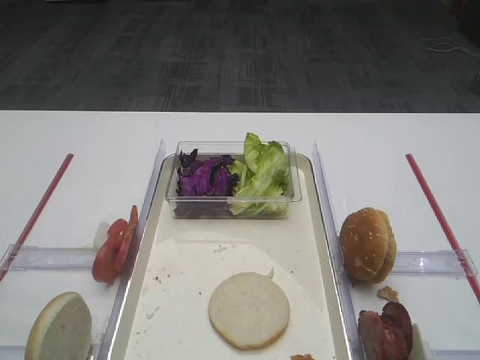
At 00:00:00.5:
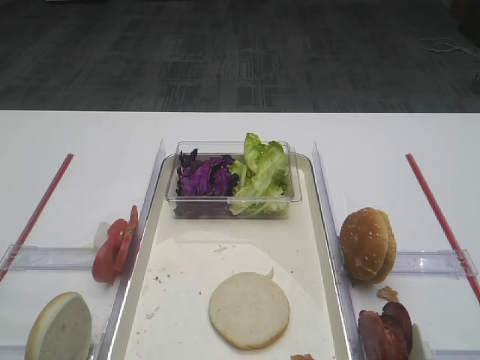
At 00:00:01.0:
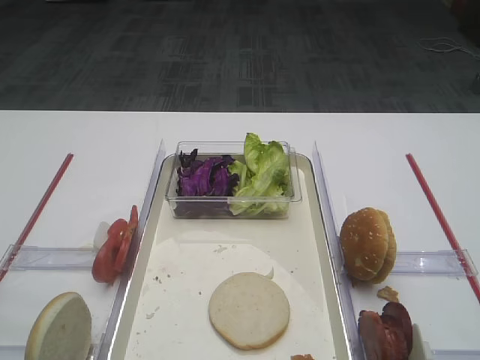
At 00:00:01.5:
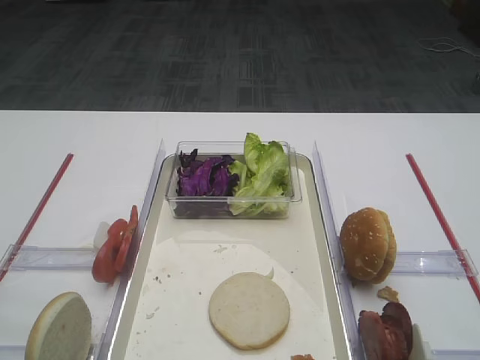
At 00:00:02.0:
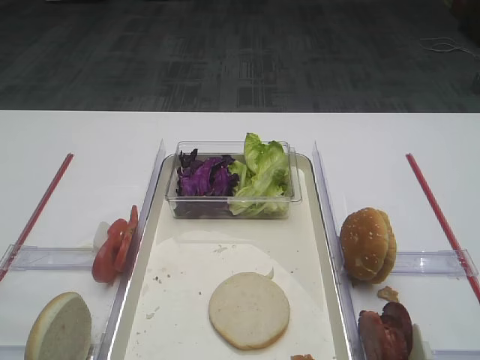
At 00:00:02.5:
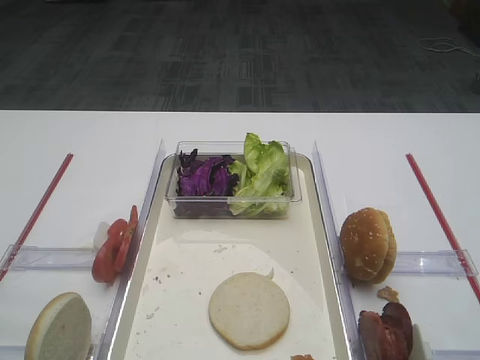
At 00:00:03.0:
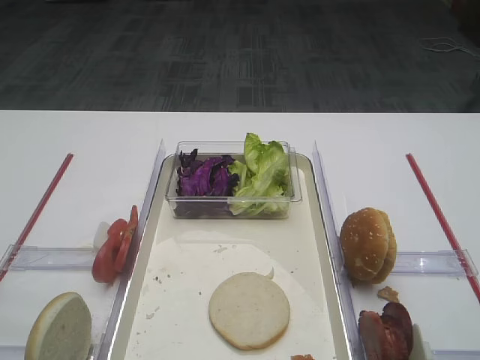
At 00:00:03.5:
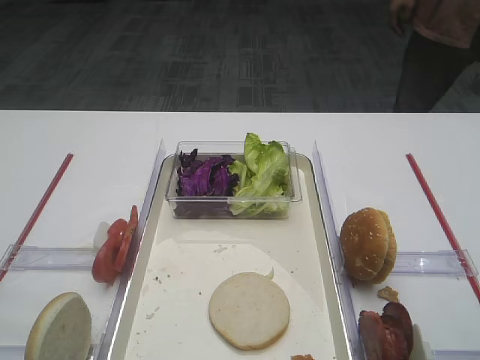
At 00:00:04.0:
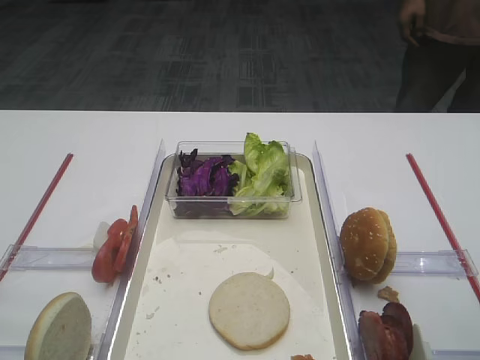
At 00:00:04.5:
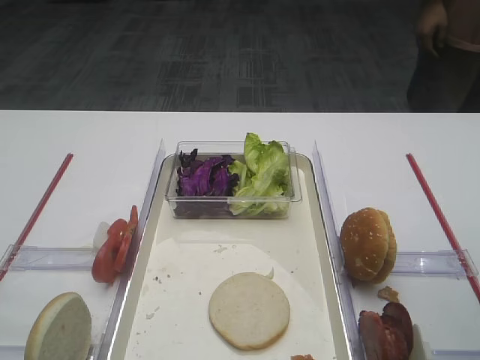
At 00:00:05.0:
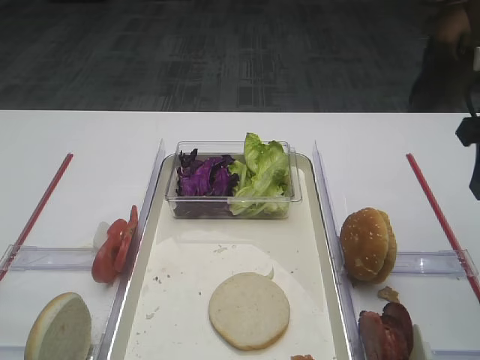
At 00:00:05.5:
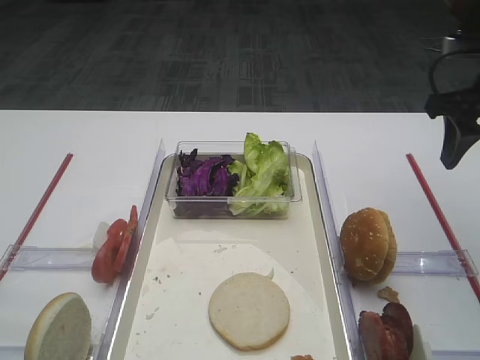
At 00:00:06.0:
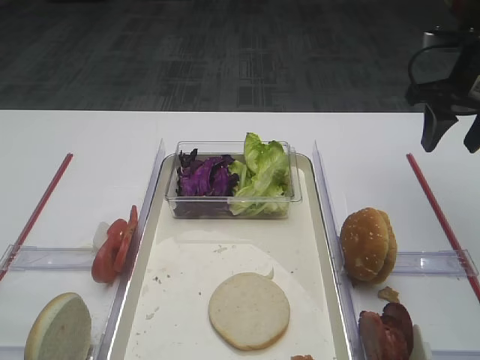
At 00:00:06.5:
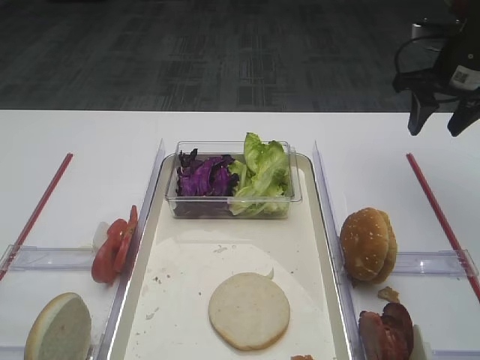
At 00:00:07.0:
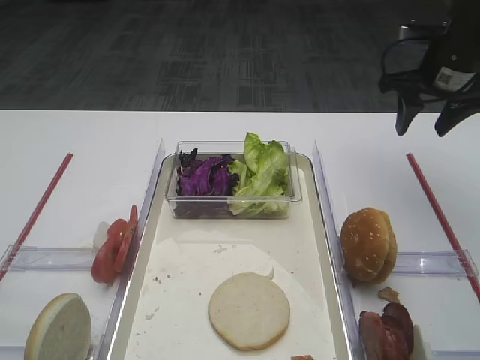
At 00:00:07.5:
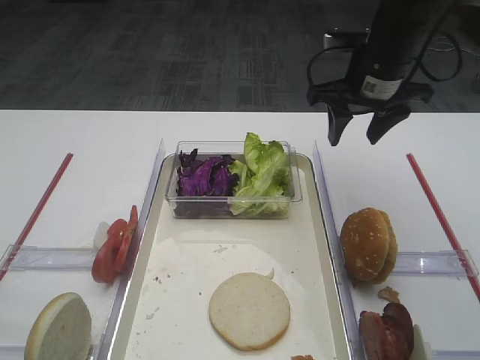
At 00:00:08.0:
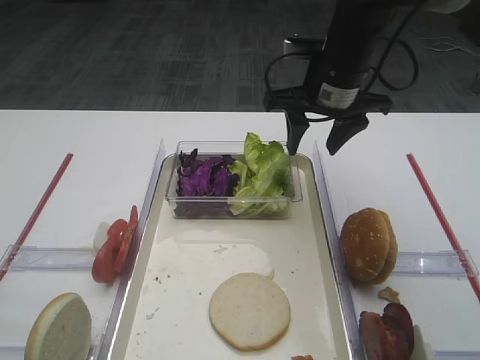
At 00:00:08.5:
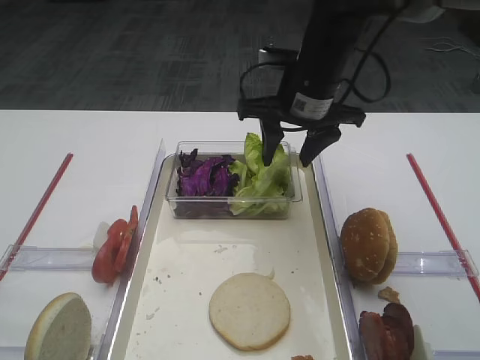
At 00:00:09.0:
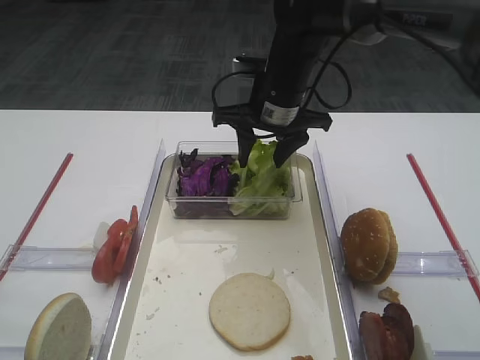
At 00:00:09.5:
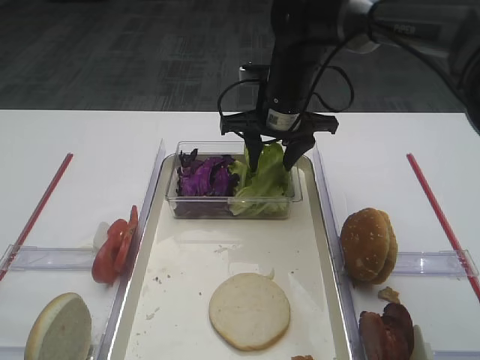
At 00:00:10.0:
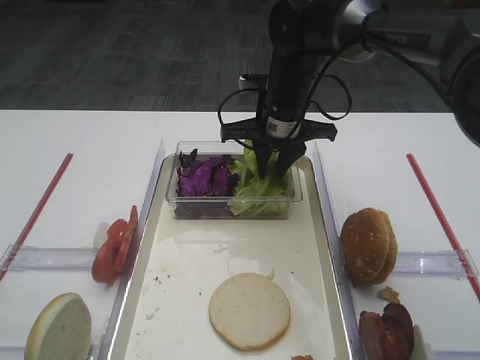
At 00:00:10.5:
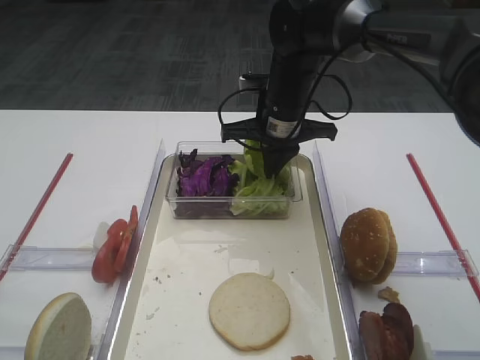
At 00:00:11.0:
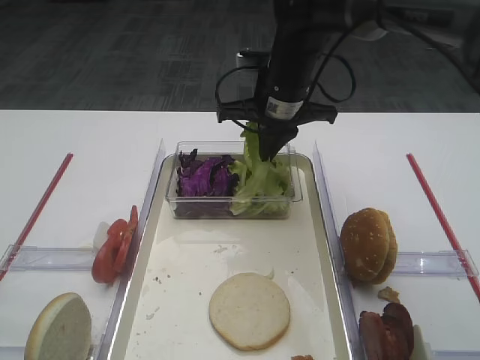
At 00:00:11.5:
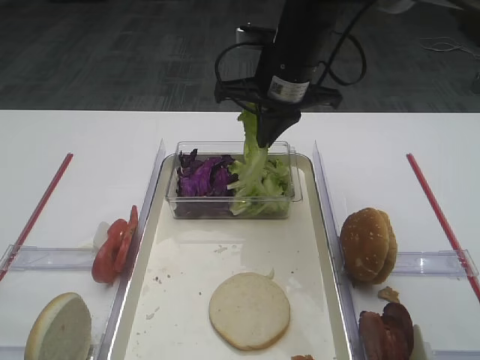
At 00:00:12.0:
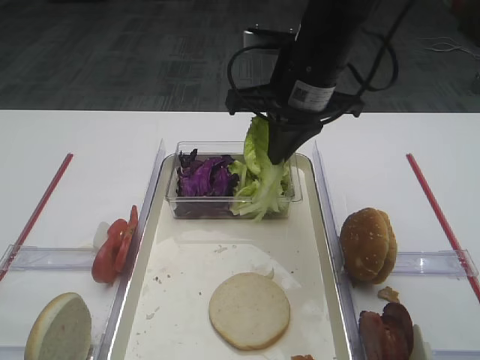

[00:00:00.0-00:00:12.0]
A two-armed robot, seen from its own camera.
Step, 00:00:00.0 to 00:00:11.0: Pick up the lettuce leaf with the right gripper.
00:00:02.0 to 00:00:04.0: The right gripper is displaced forward by roughly 10 cm.
00:00:04.0 to 00:00:06.0: The right gripper travels forward by about 25 cm.
00:00:06.0 to 00:00:08.0: The right gripper heads to the left, covering approximately 15 cm.
00:00:08.0 to 00:00:10.0: The right gripper is displaced to the left and downward by roughly 10 cm, and closes.
00:00:10.0 to 00:00:12.0: The right gripper goes roughly 10 cm upward and backward, and closes.

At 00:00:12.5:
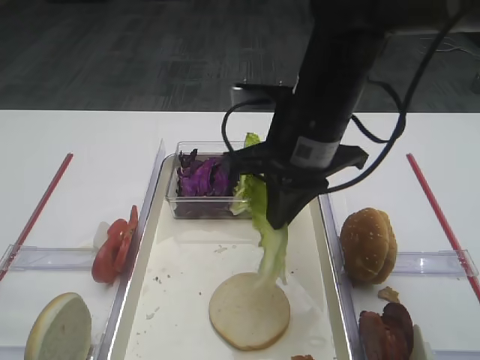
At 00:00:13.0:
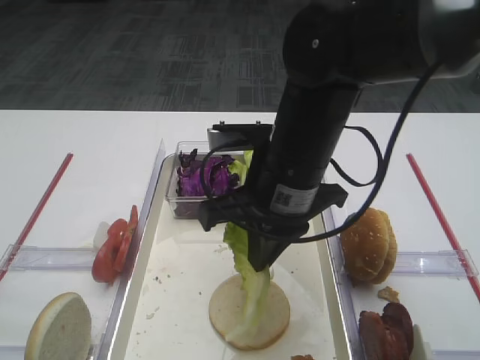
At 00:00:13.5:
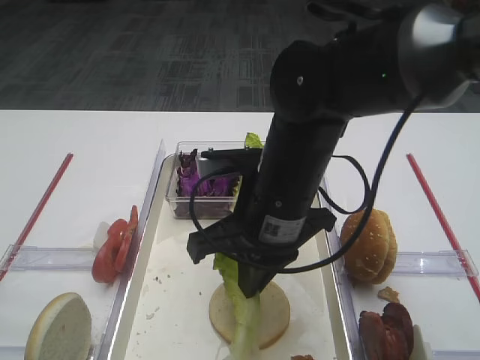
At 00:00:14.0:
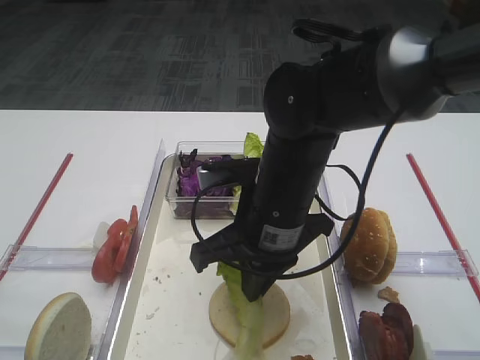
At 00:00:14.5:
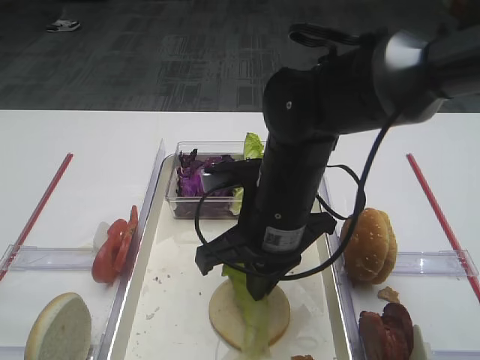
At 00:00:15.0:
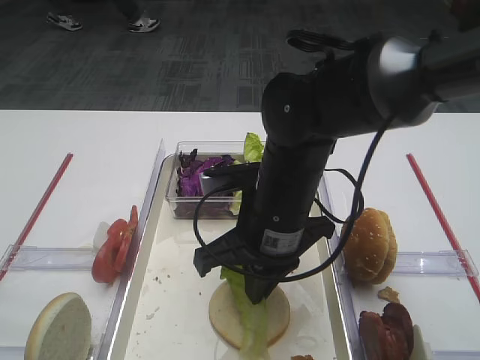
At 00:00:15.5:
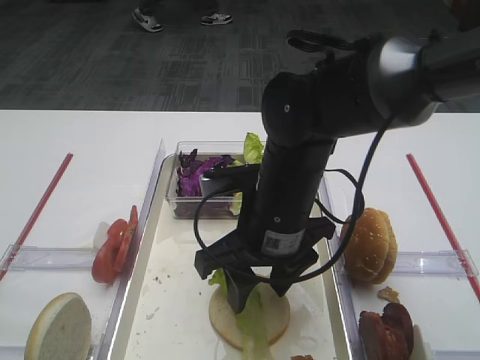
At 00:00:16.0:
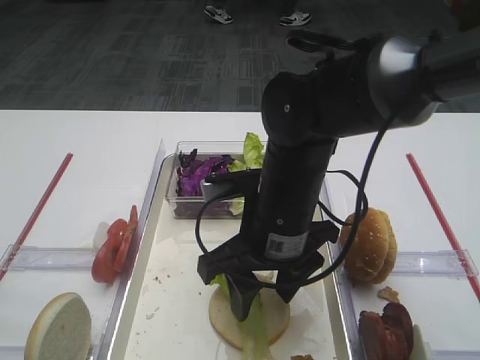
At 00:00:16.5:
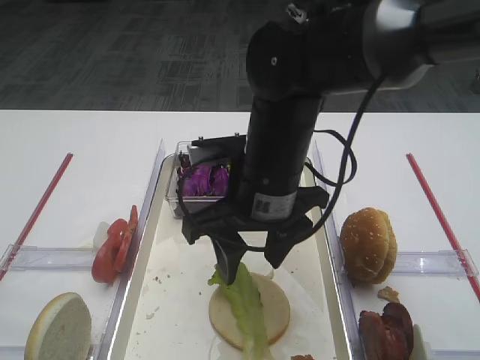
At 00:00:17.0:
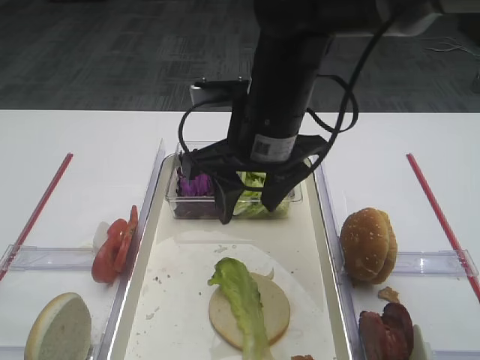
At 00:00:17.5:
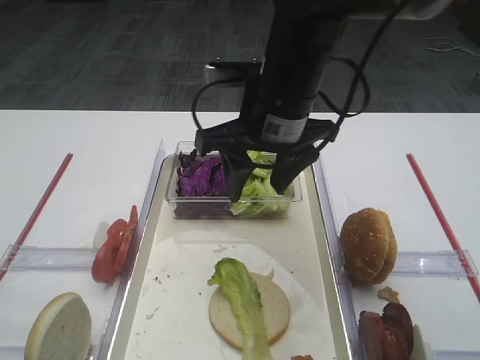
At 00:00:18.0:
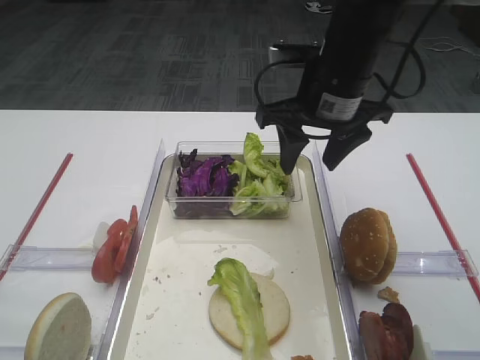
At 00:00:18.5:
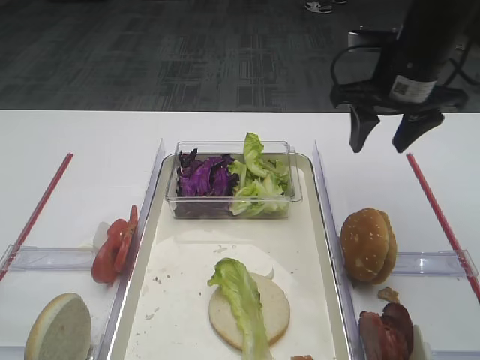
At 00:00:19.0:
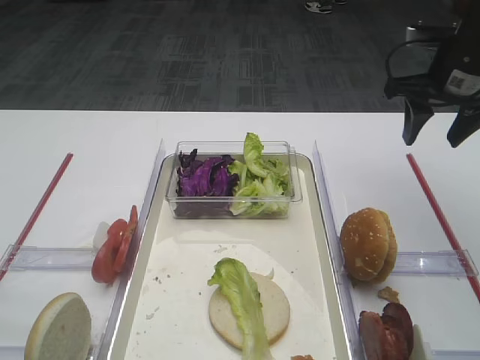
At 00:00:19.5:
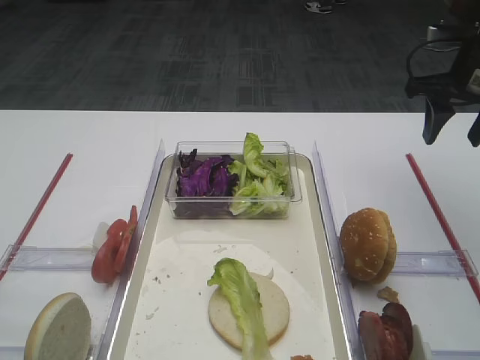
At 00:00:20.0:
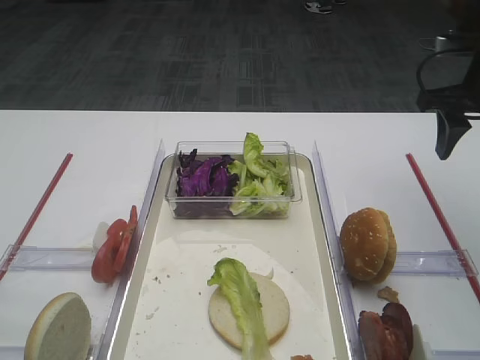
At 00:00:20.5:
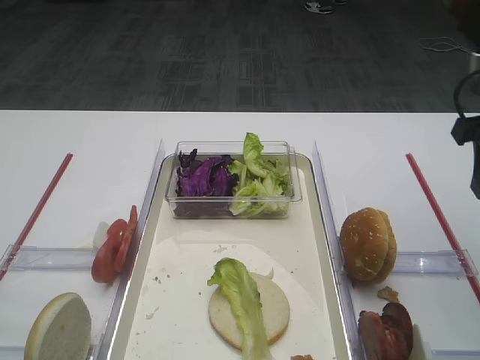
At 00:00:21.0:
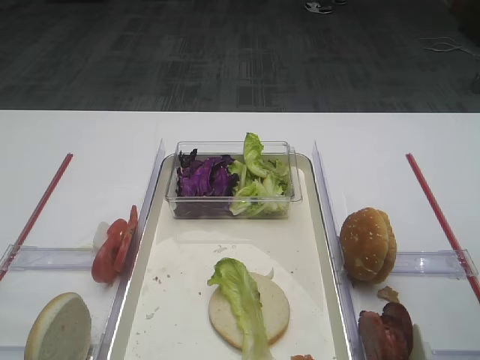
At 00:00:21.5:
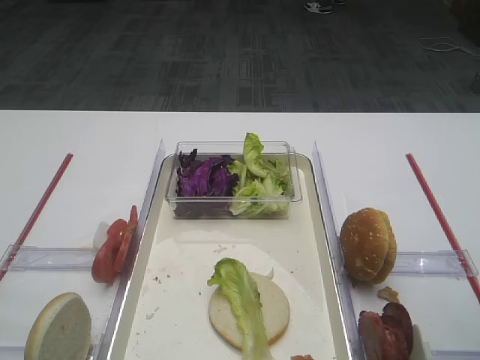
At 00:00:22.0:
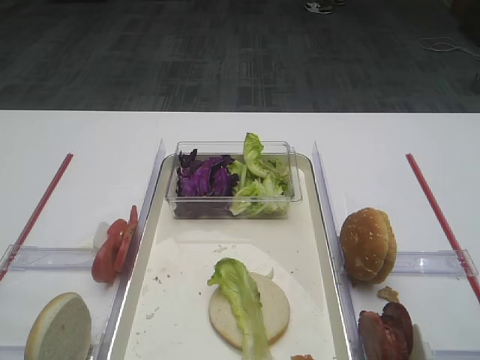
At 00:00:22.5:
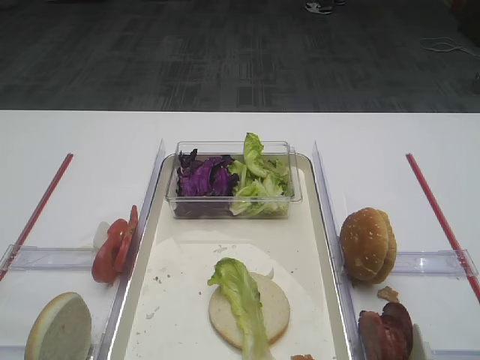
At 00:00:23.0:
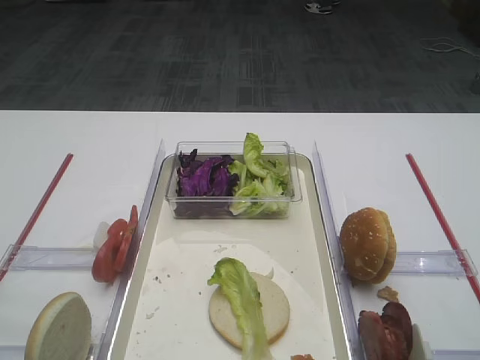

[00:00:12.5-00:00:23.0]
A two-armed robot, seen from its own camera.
Step, 00:00:12.5 to 00:00:15.5: Place the lettuce leaf on the bread slice with the right gripper.
00:00:12.5 to 00:00:14.5: The right gripper travels downward by roughly 5 cm.
00:00:14.5 to 00:00:16.5: The right gripper opens up.
00:00:16.5 to 00:00:19.0: The right gripper travels to the right and forward by some 25 cm.
00:00:19.0 to 00:00:21.0: The right gripper is displaced backward by about 20 cm.
00:00:21.0 to 00:00:23.0: The right gripper moves backward, some 15 cm.

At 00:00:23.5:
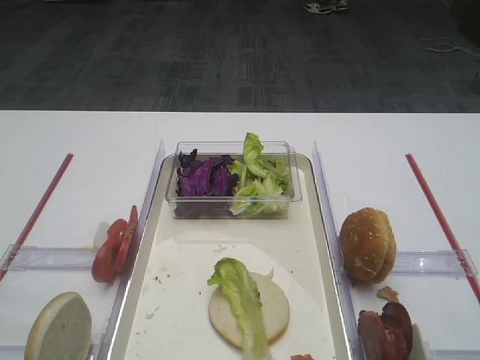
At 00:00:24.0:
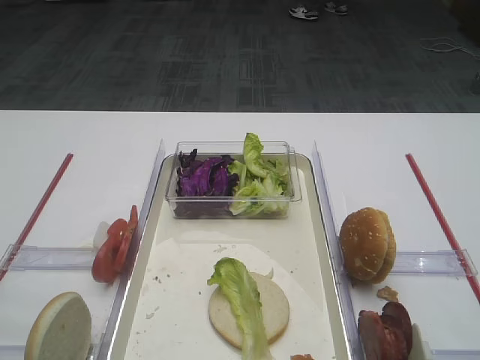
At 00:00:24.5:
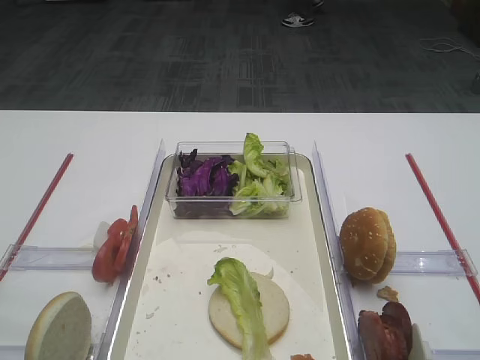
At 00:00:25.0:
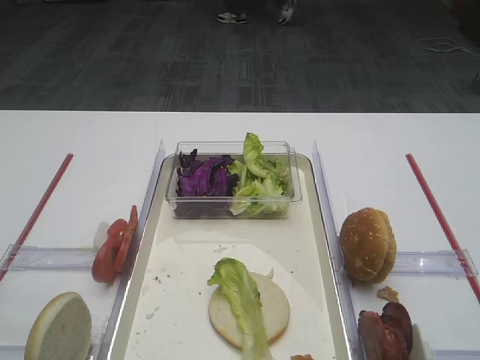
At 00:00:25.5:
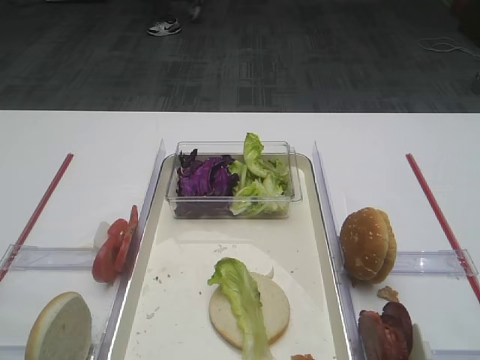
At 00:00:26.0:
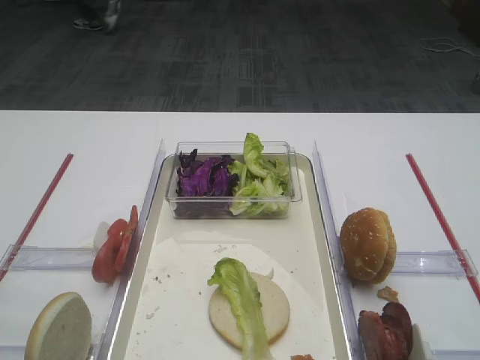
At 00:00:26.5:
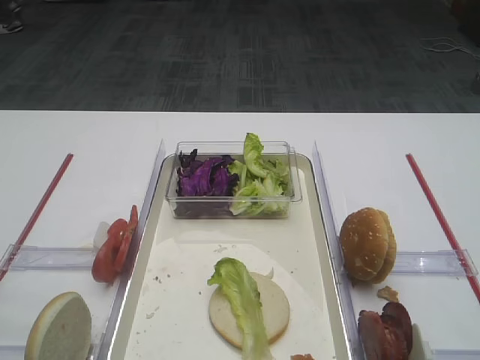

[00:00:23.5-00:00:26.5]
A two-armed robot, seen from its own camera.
00:00:25.0 to 00:00:26.5: Neither gripper changes place.
